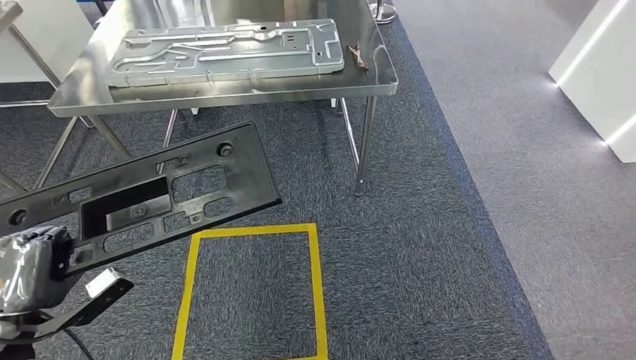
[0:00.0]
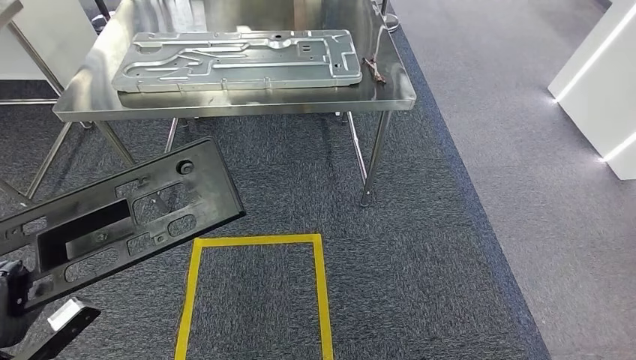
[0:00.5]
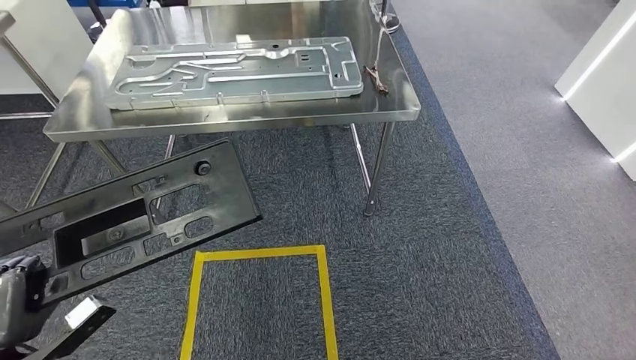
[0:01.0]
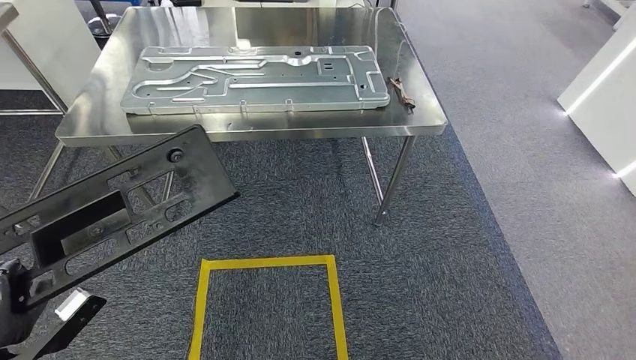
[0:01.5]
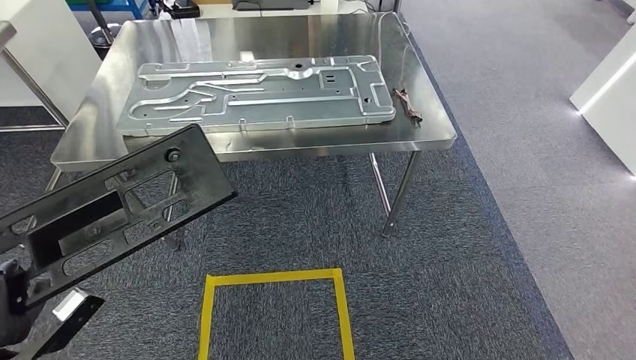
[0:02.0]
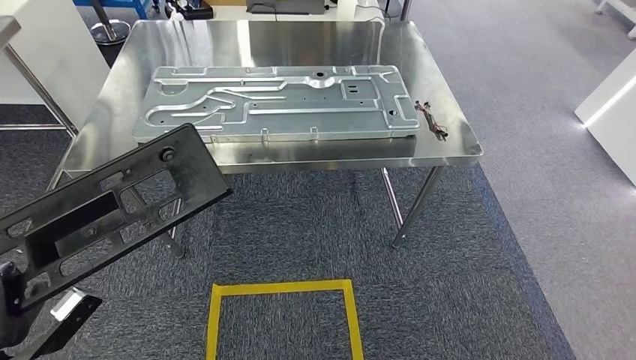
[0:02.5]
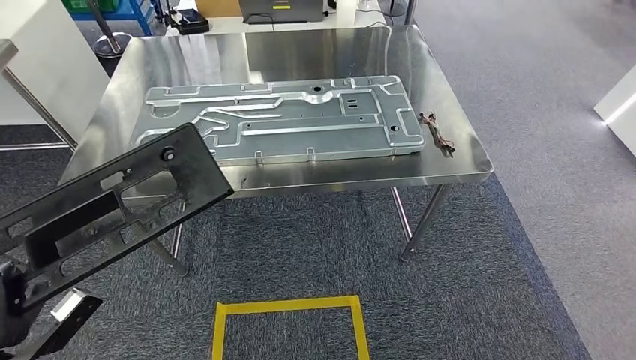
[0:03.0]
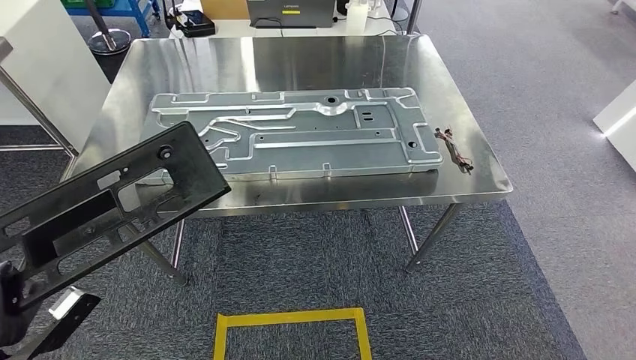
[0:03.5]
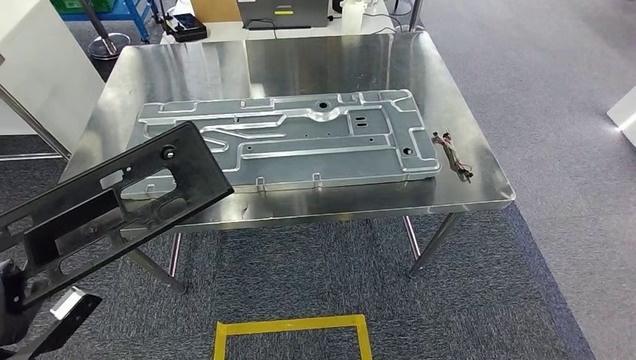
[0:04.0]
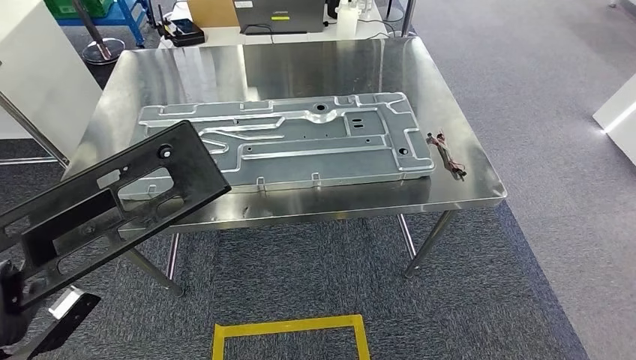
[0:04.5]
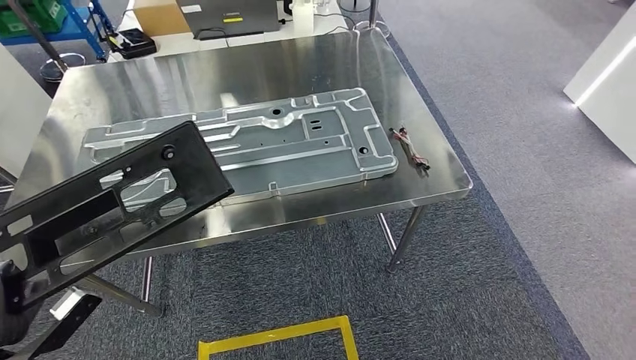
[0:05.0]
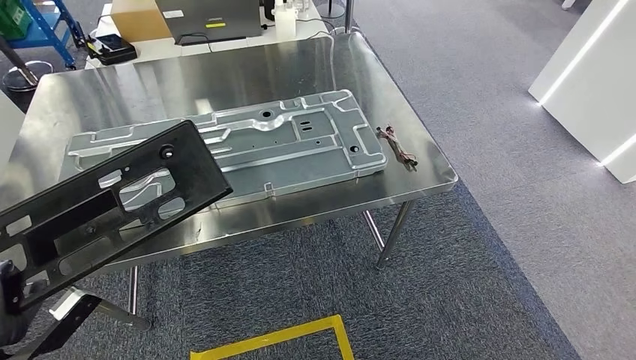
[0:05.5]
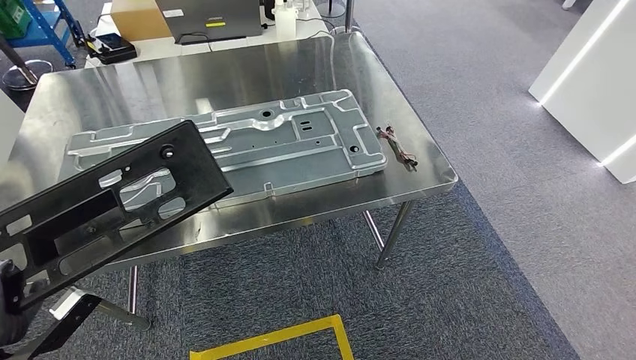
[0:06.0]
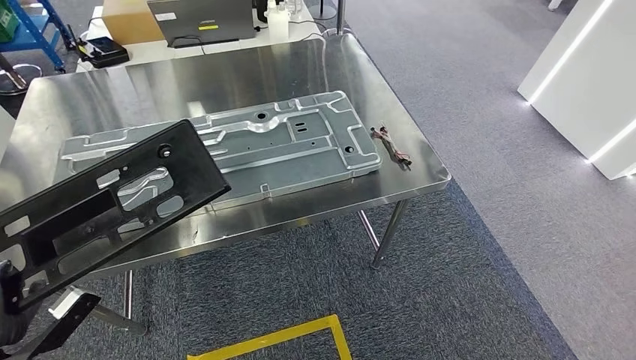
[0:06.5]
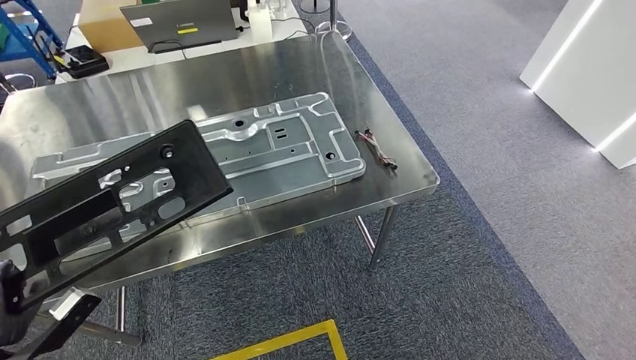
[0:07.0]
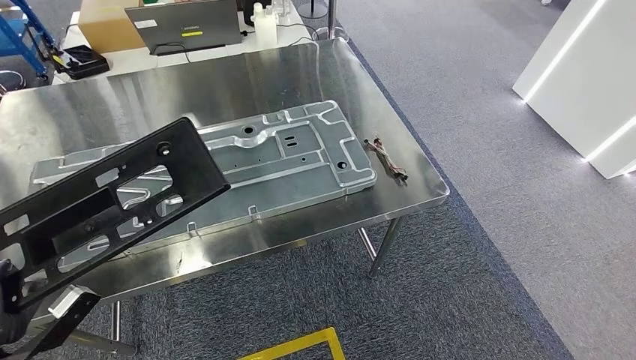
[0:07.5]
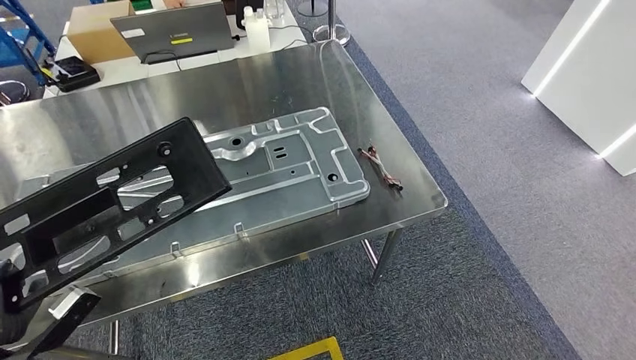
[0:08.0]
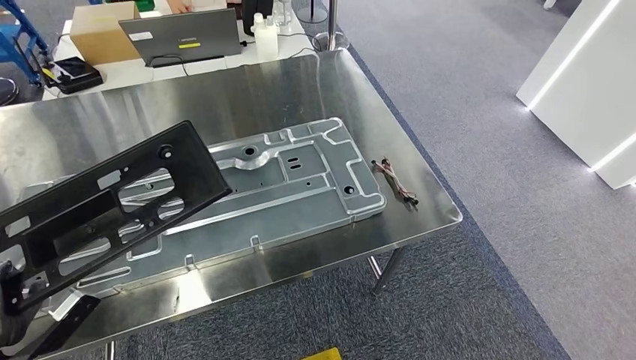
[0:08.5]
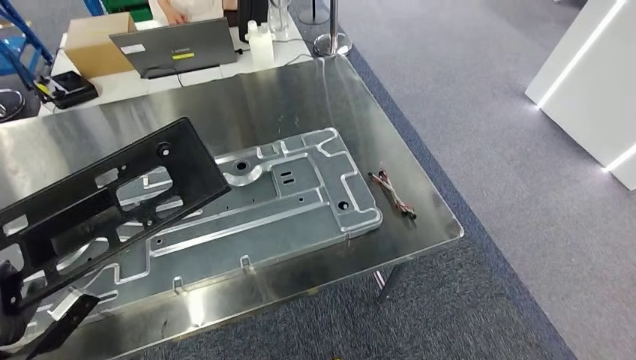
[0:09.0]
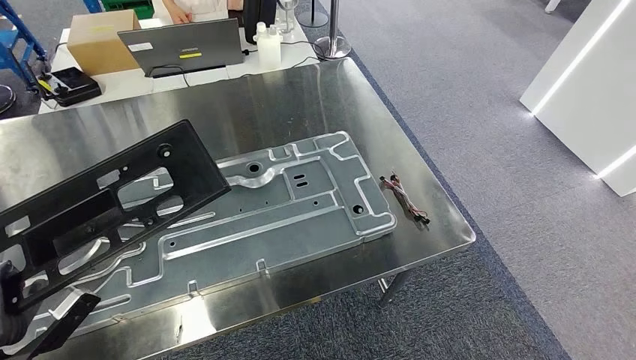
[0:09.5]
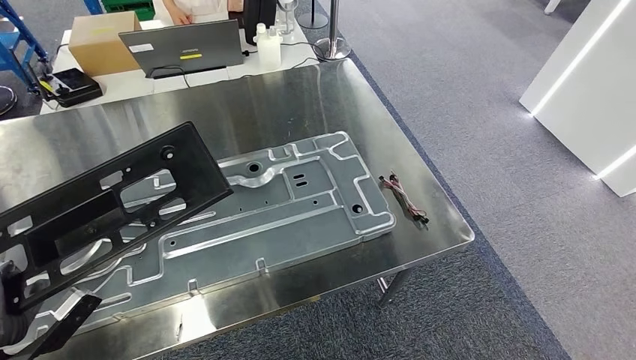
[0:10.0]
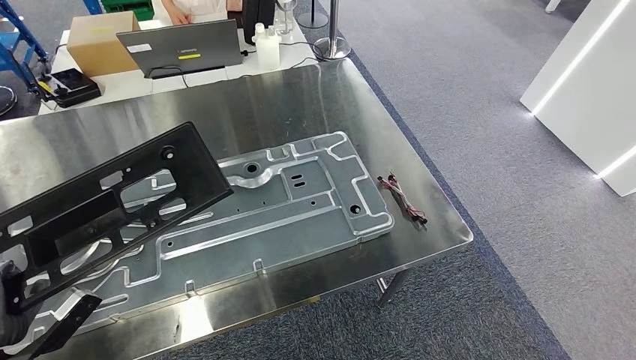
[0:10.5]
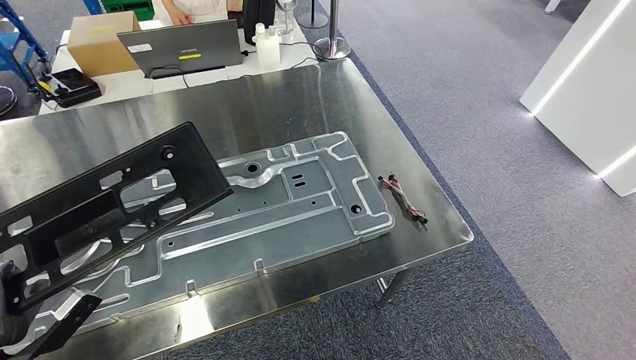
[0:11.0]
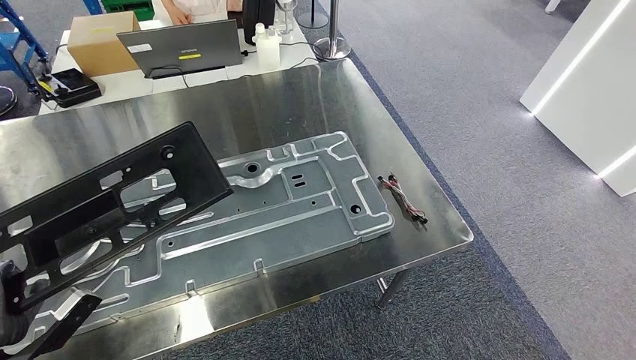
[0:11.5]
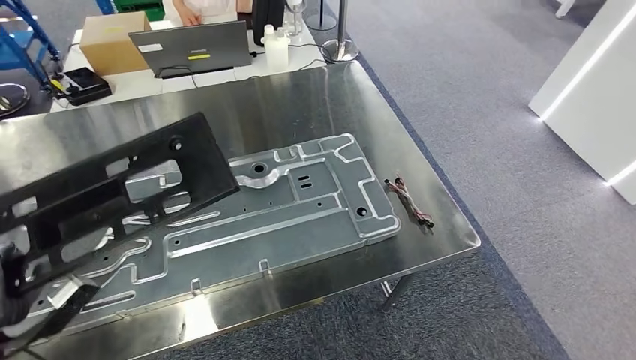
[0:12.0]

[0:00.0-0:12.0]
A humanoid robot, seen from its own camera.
Step, 0:00.0 to 0:03.0: Move the large material to the workbench.

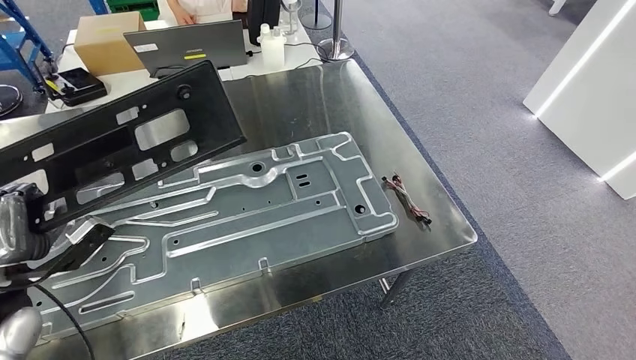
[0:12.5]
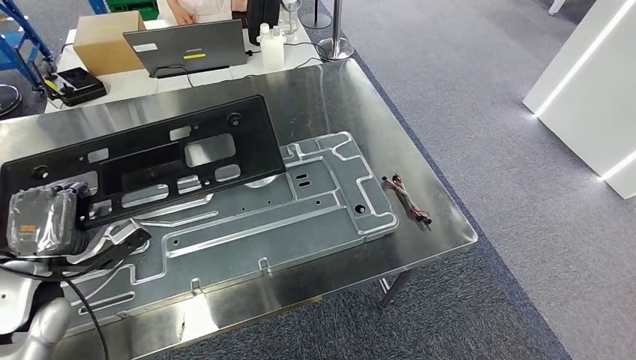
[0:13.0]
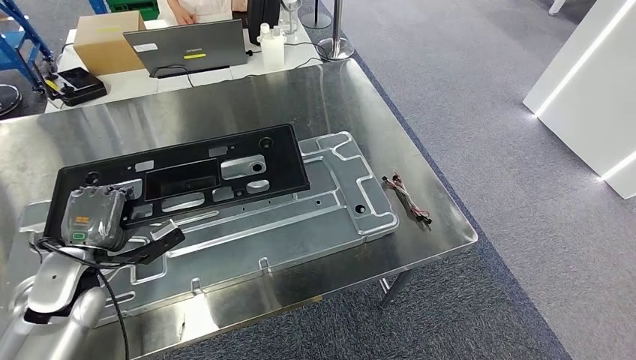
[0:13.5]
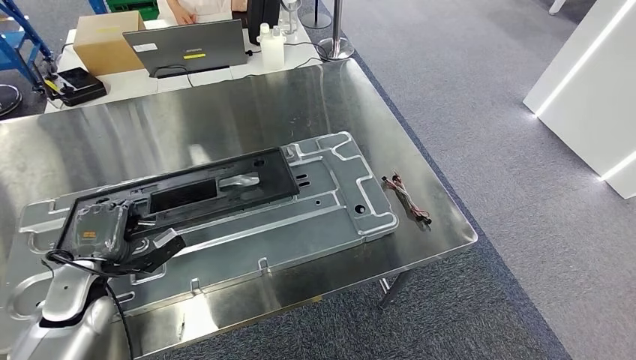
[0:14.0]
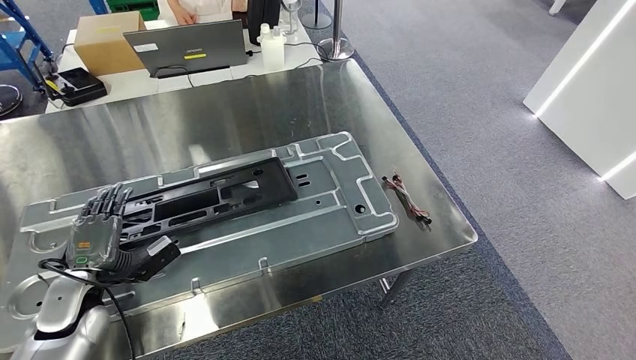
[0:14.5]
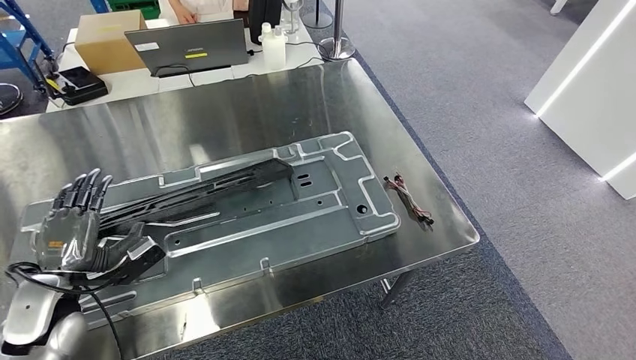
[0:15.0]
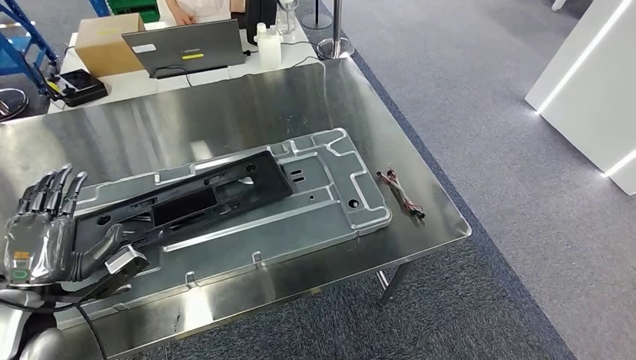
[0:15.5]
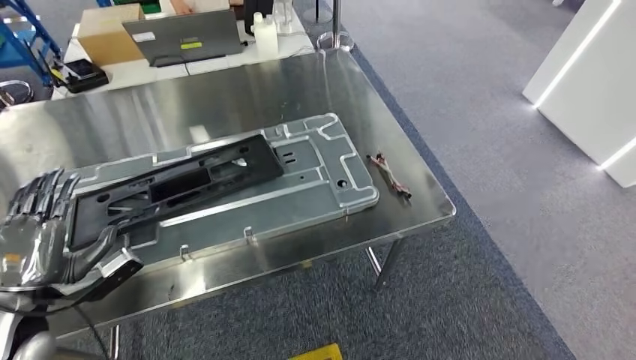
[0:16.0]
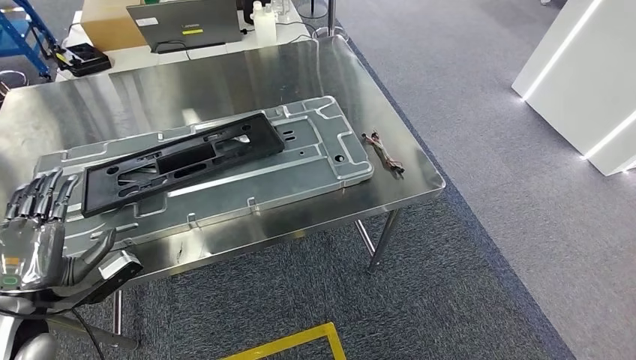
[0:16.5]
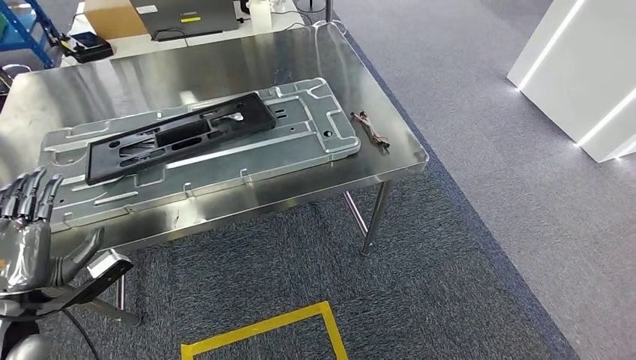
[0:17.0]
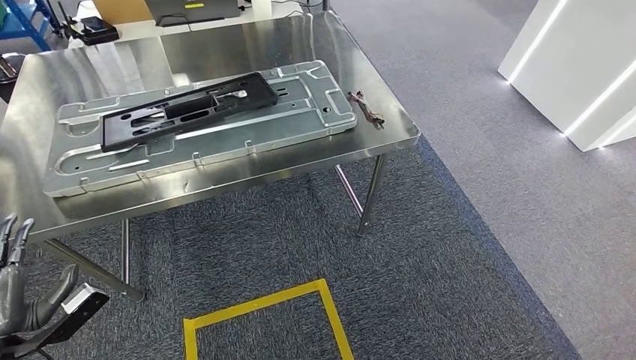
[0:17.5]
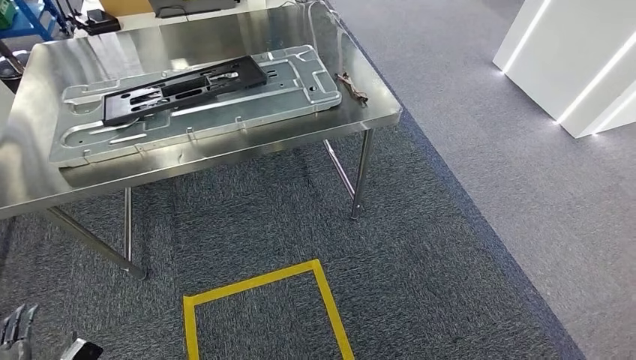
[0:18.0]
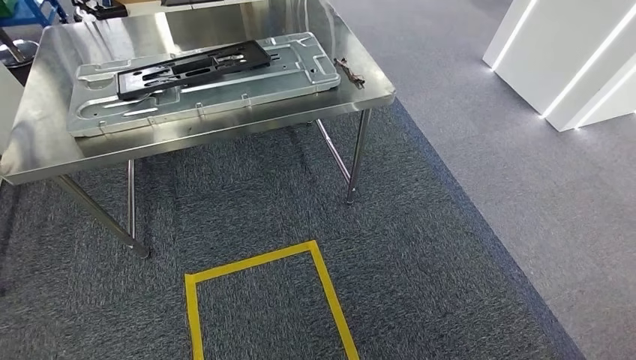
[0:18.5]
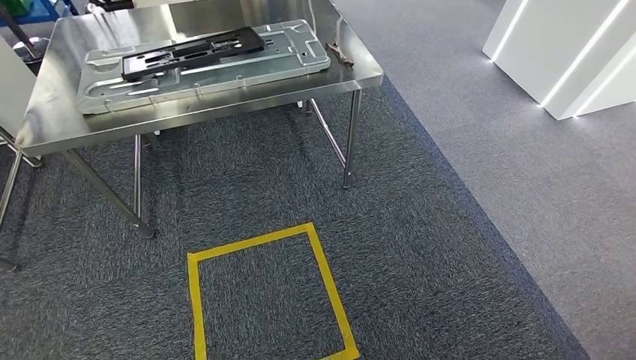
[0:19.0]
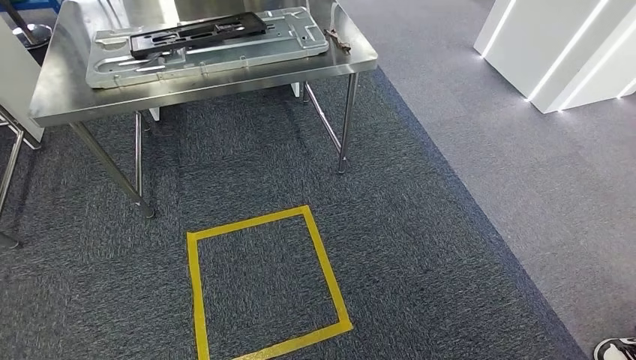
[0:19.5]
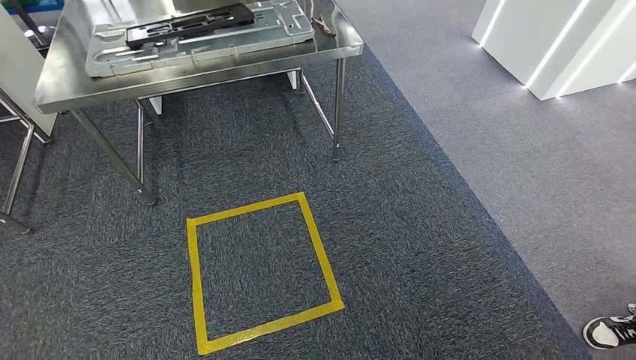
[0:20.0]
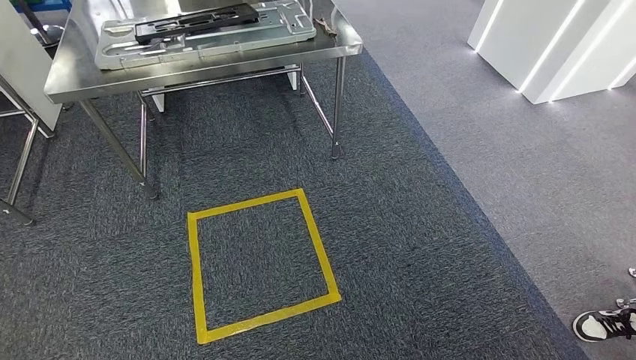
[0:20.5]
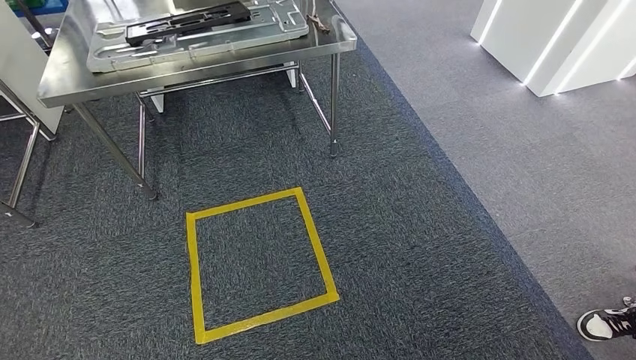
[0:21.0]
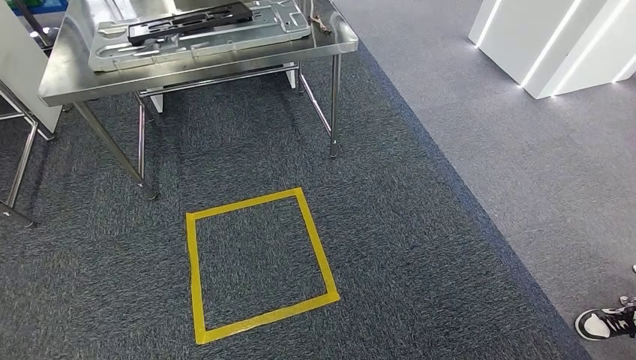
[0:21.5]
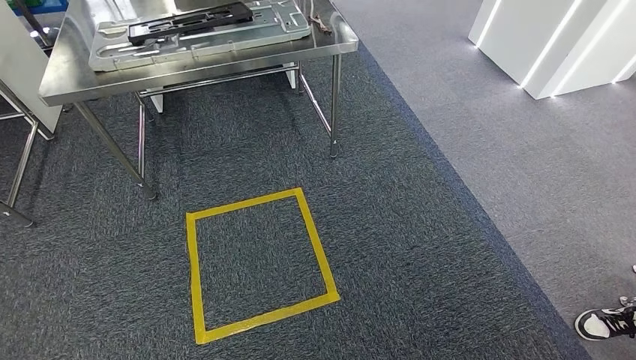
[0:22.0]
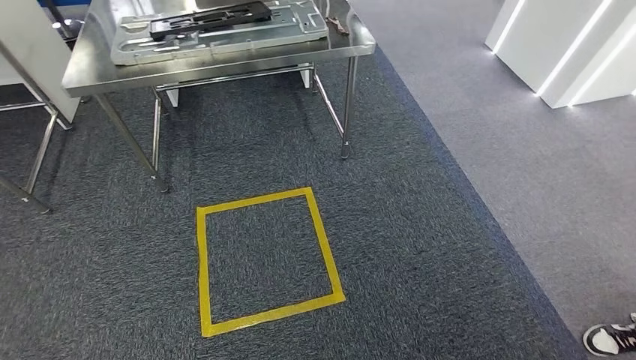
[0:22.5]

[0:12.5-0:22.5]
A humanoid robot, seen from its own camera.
Step, 0:12.5 to 0:16.0: Insert the large material into the corresponding slot on the workbench.
Step, 0:16.5 to 0:22.5: Move to the initial position of the shelf.
0:20.5 to 0:22.5: The left hand is displaced forward by approximately 5 cm. The right hand shifts some 5 cm backward.
